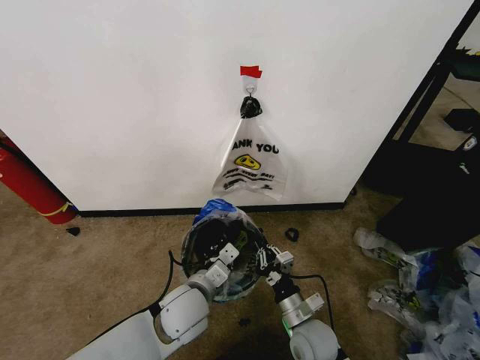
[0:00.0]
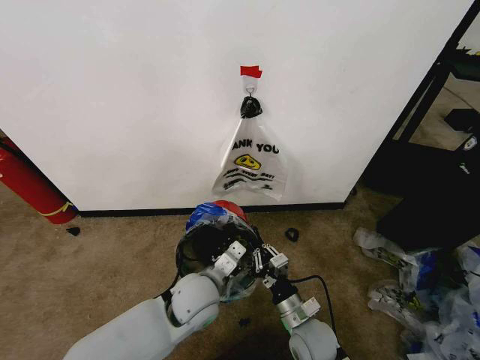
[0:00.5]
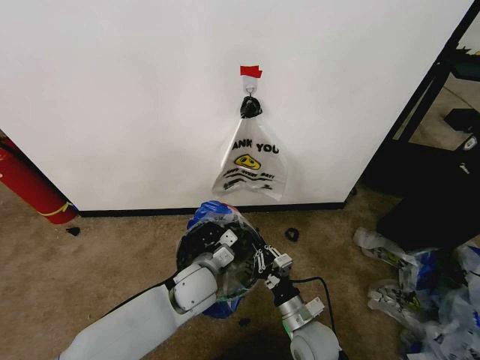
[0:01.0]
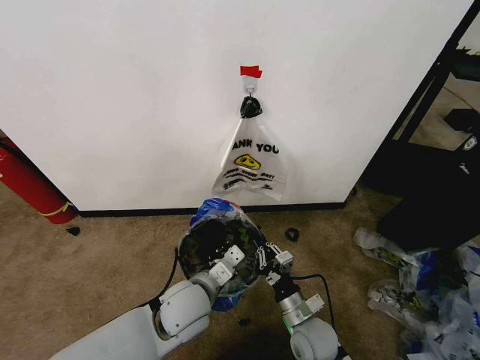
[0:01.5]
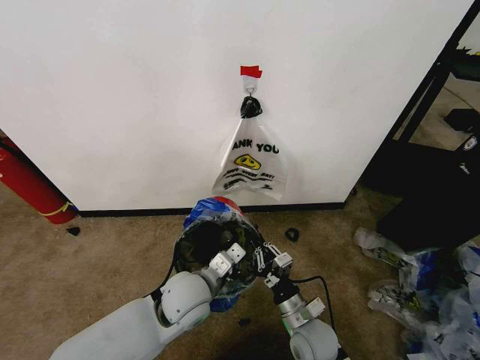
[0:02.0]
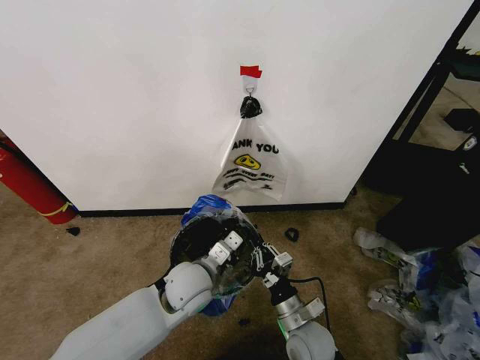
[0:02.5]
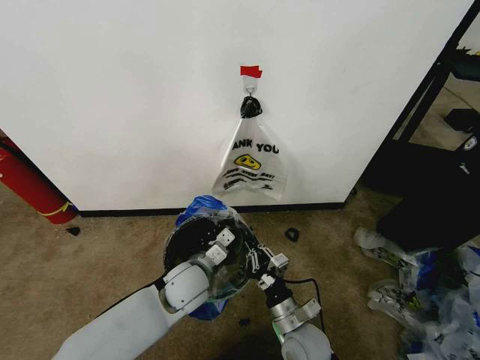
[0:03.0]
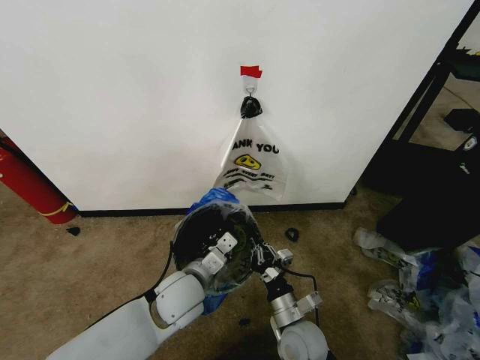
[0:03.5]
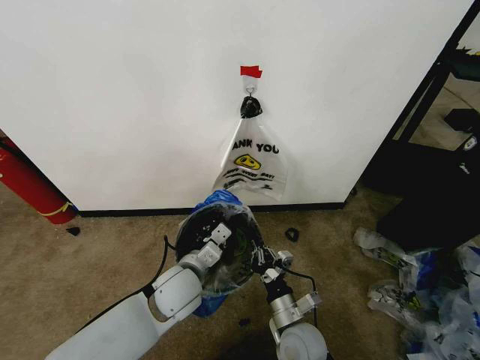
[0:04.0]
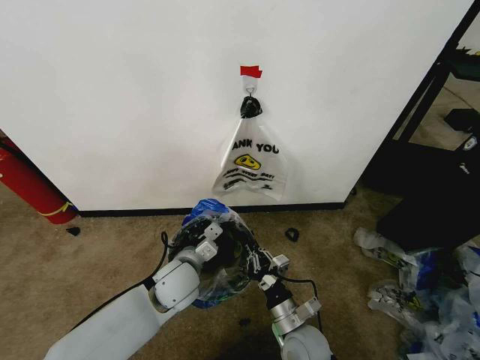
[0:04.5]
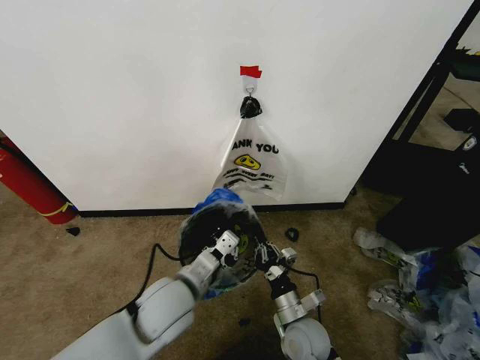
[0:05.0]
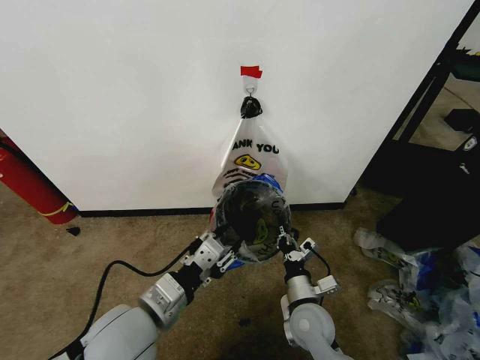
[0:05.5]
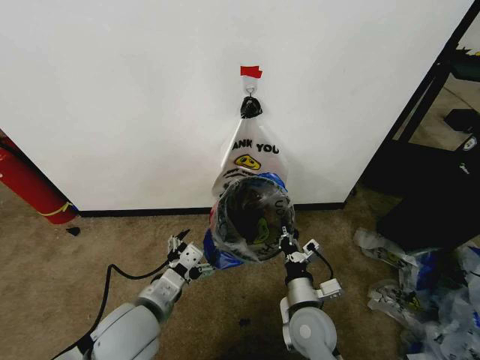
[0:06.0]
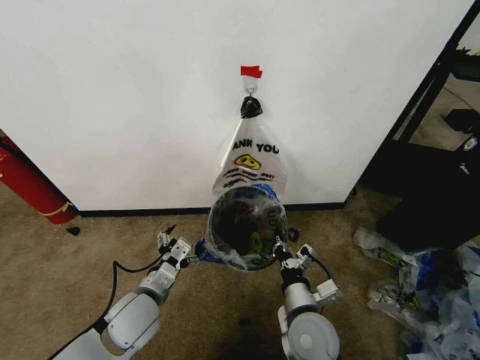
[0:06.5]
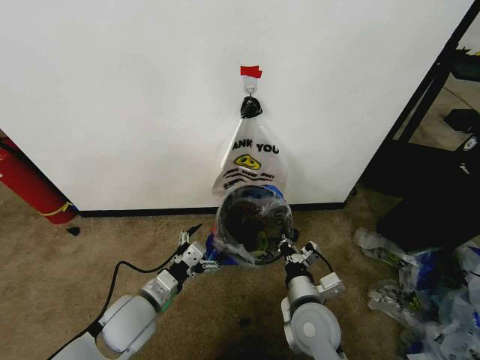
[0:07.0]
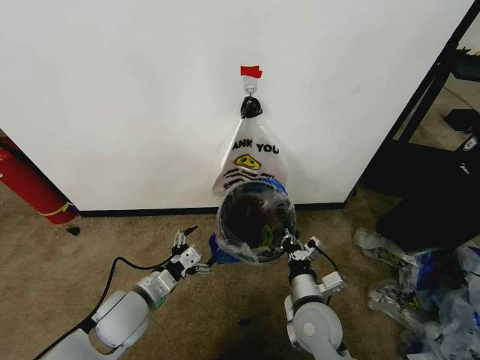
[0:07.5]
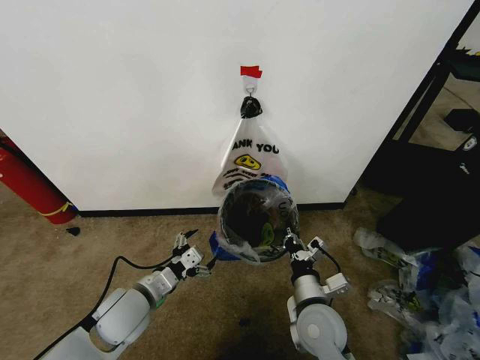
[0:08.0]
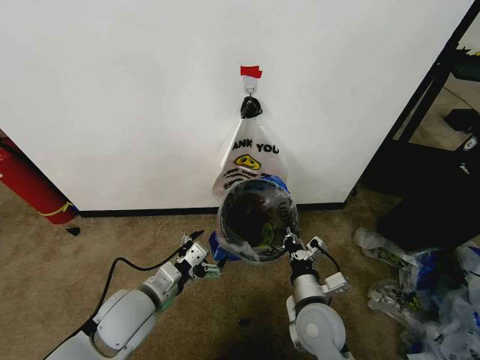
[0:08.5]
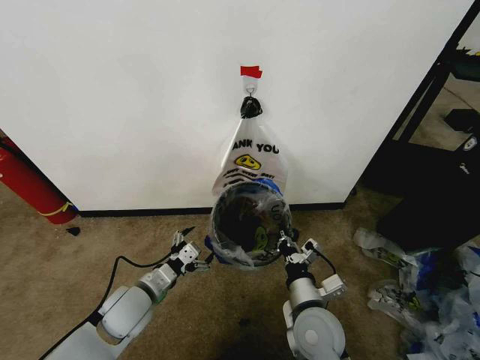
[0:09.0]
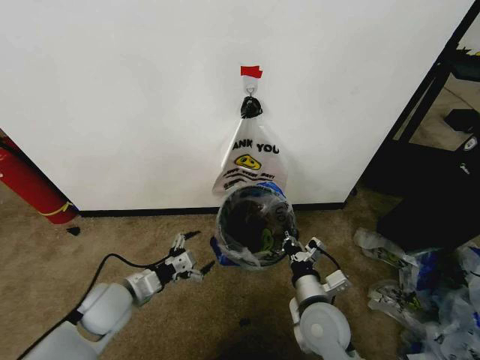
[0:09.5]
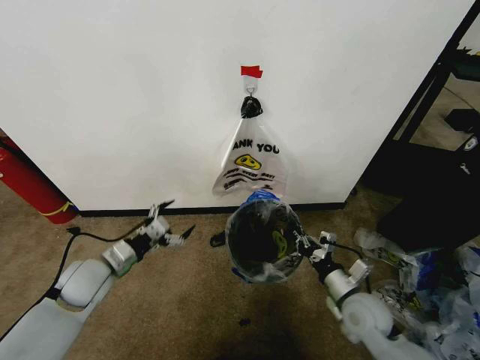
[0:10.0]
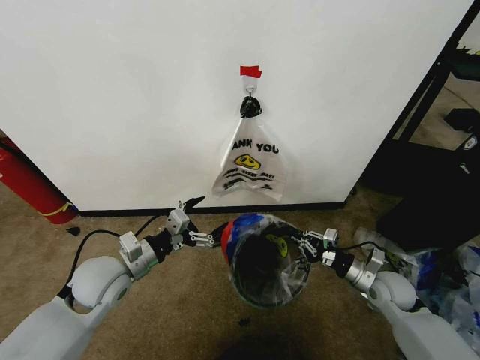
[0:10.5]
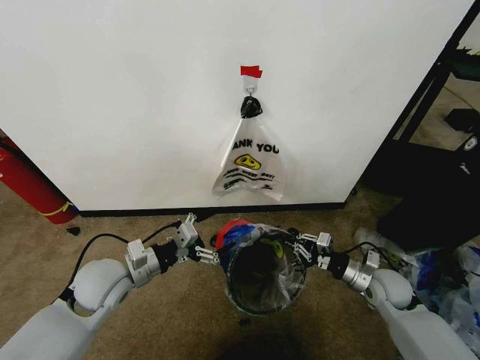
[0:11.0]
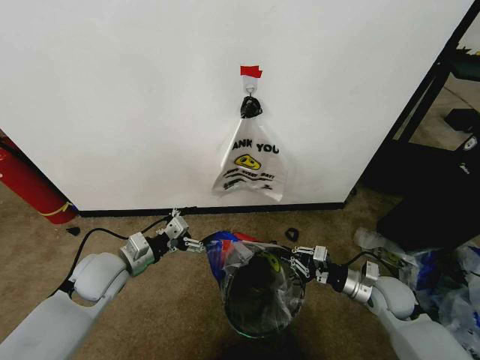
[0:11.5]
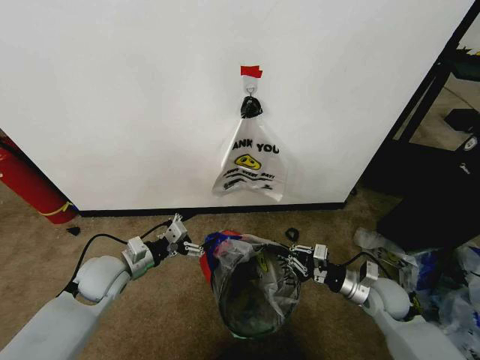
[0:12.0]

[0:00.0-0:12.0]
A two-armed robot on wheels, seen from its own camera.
Task of the whole recording: Pick up the garbage bag from the wall and place it over the trash bin.
0:04.0 to 0:06.0: The left gripper goes some 10 cm backward and to the left, and opens its fingers.
0:06.0 to 0:08.0: The left gripper shifts about 5 cm downward.
0:08.0 to 0:10.0: The left gripper is displaced to the left and forward by some 10 cm, while the right gripper shifts approximately 10 cm to the right.
0:10.0 to 0:12.0: The right gripper is displaced to the right by roughly 5 cm.

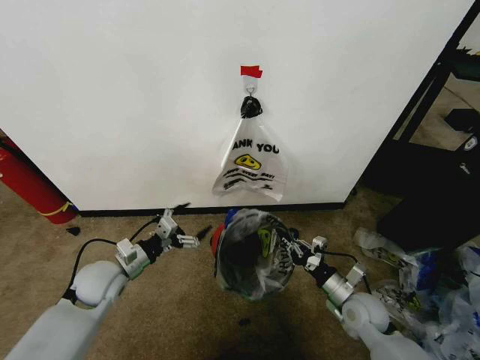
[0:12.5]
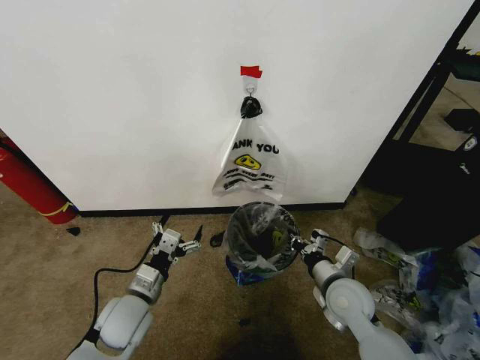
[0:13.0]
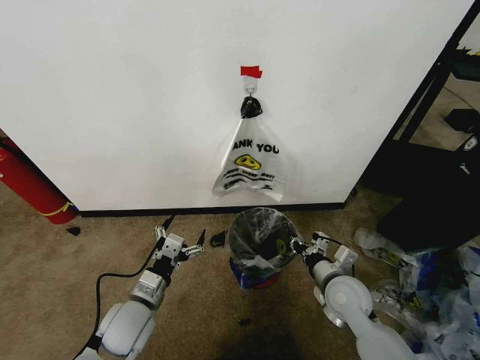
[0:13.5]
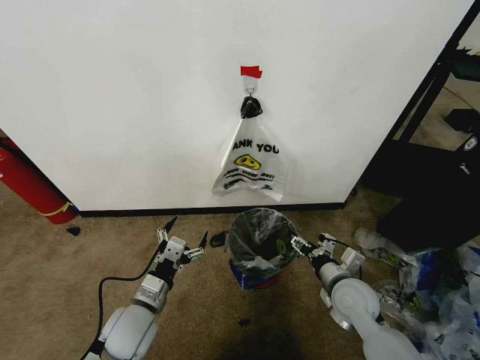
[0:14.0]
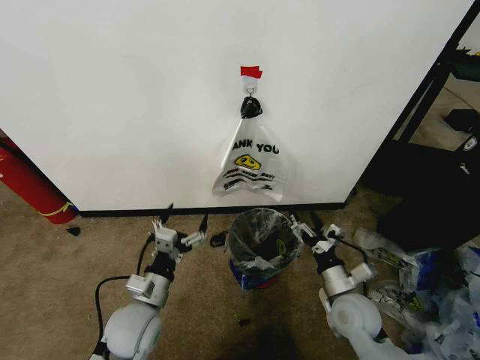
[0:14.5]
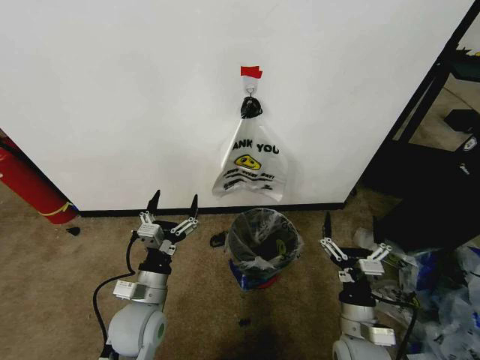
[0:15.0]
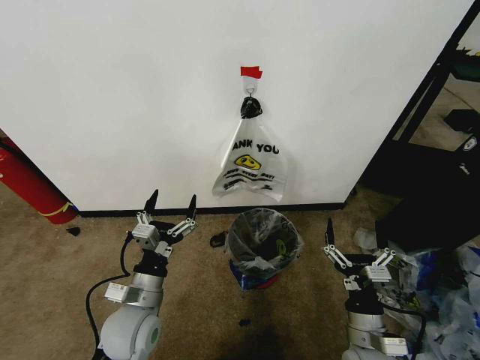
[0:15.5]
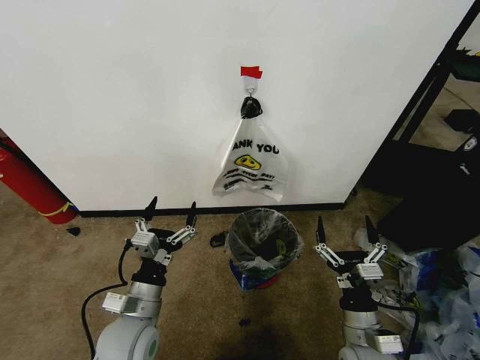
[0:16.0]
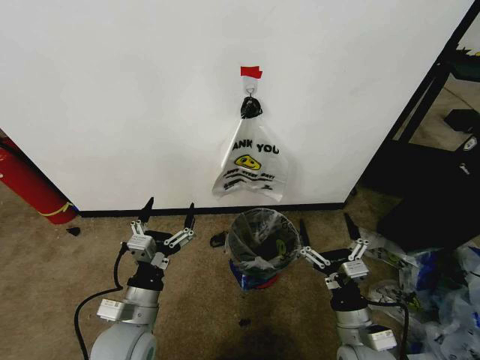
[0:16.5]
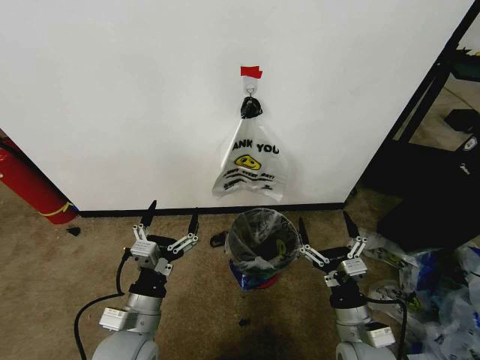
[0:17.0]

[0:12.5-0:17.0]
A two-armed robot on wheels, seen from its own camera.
Task of the whole recording: Pick up the garbage bag from the wall and place it over the trash bin.
0:12.5 to 0:14.5: The left gripper shifts some 15 cm to the right and backward; the right gripper moves about 5 cm, and opens its fingers.
0:14.5 to 0:17.0: The left gripper travels backward by approximately 5 cm, while the right gripper heads backward, covering about 10 cm.

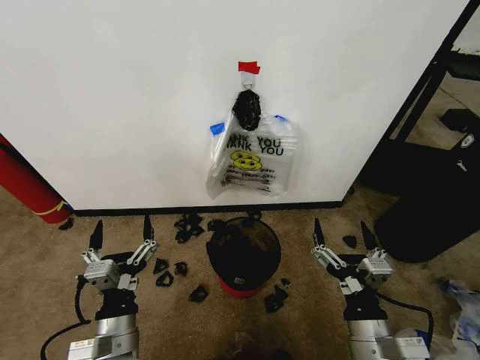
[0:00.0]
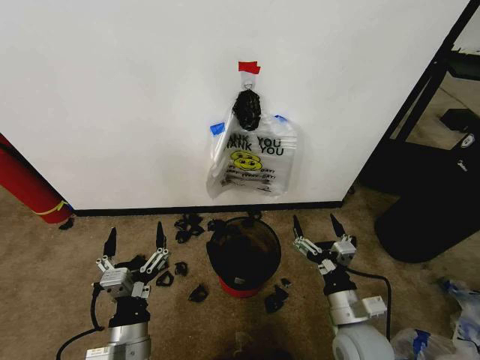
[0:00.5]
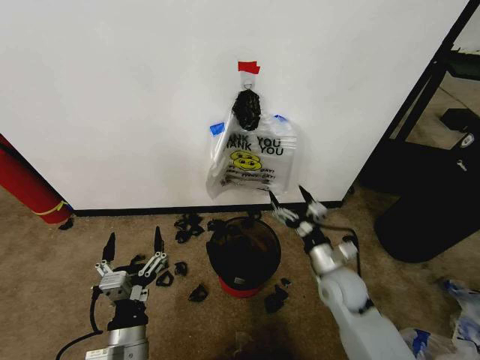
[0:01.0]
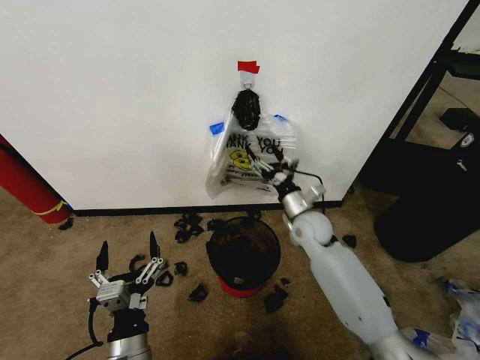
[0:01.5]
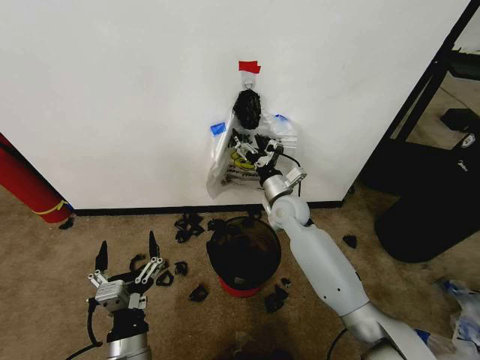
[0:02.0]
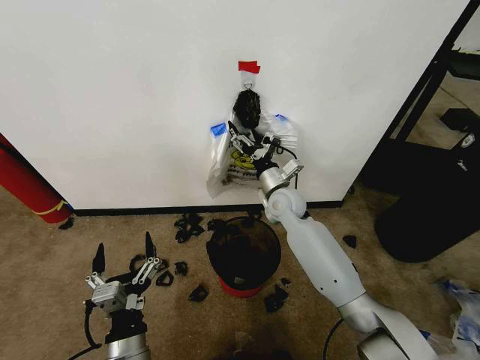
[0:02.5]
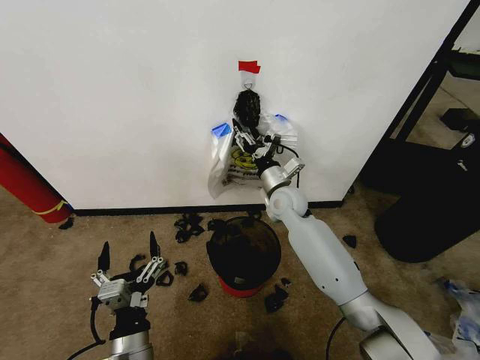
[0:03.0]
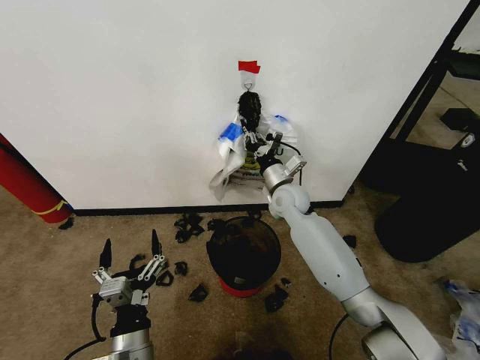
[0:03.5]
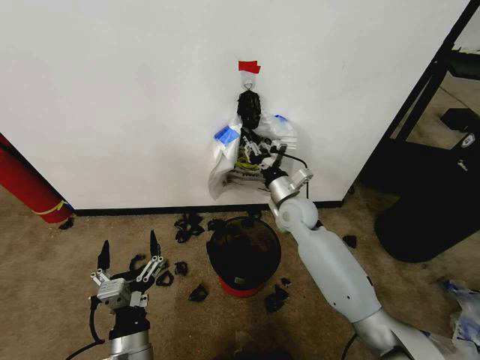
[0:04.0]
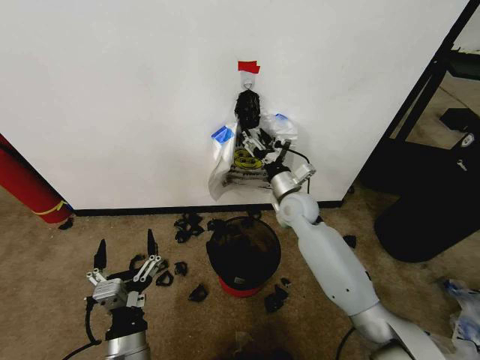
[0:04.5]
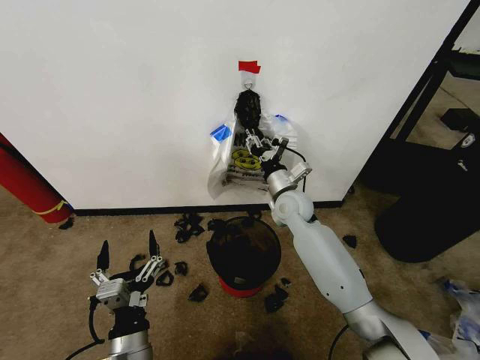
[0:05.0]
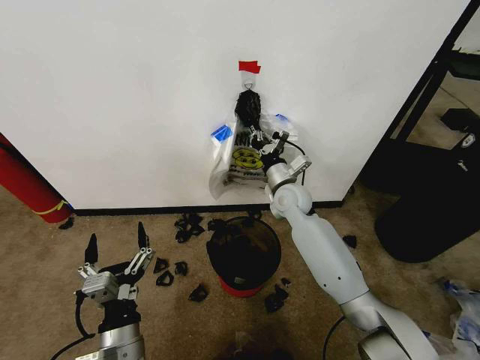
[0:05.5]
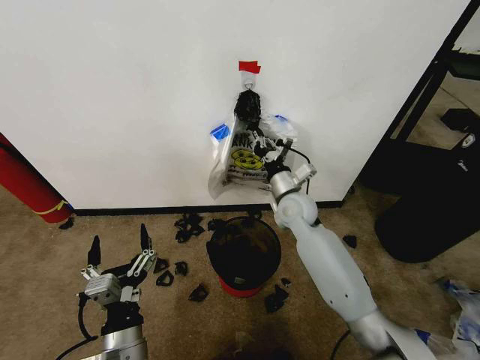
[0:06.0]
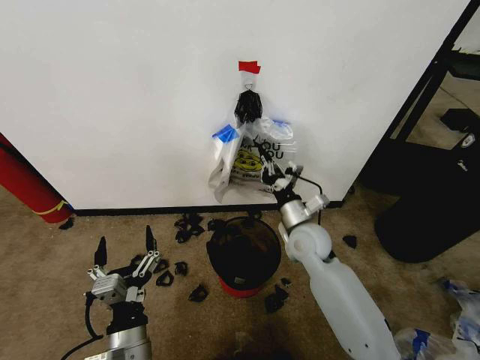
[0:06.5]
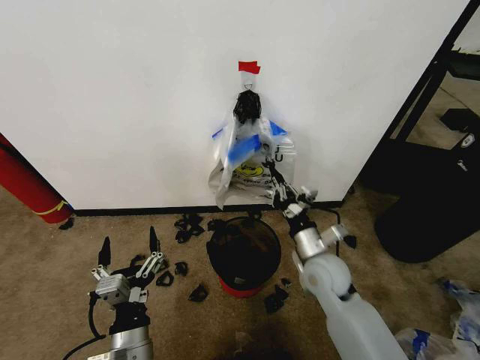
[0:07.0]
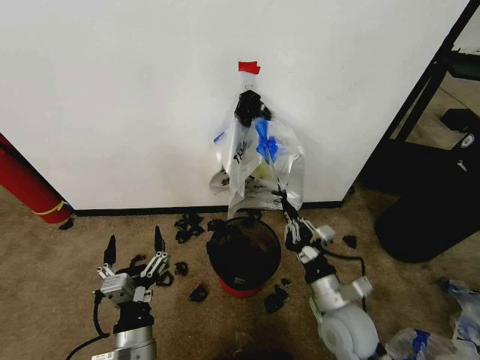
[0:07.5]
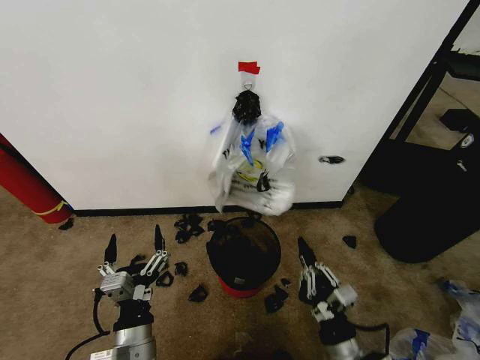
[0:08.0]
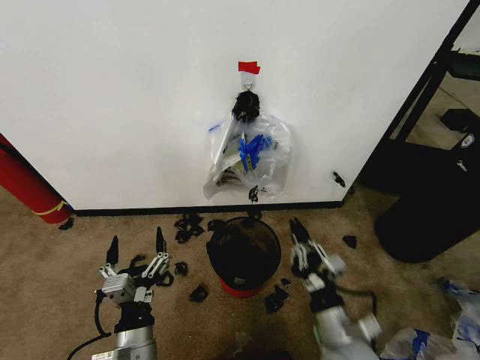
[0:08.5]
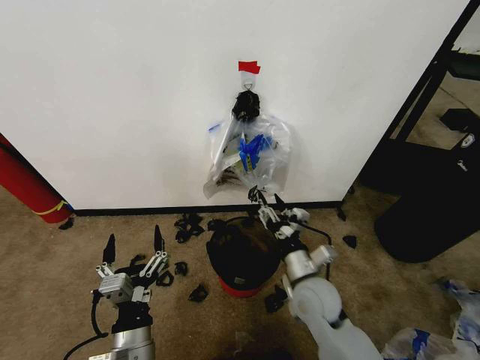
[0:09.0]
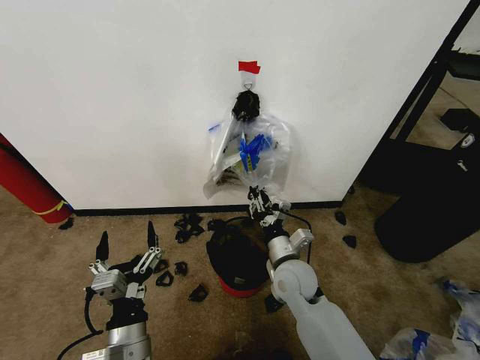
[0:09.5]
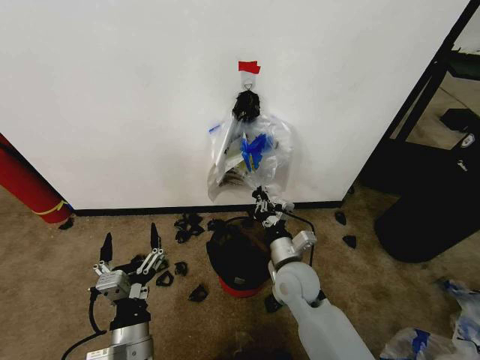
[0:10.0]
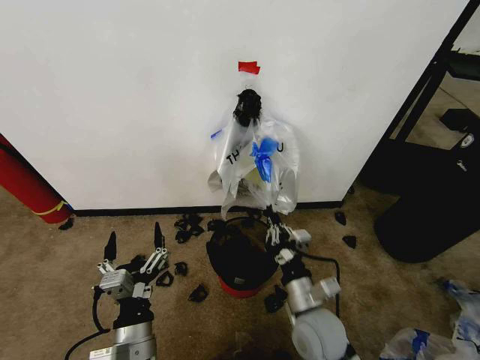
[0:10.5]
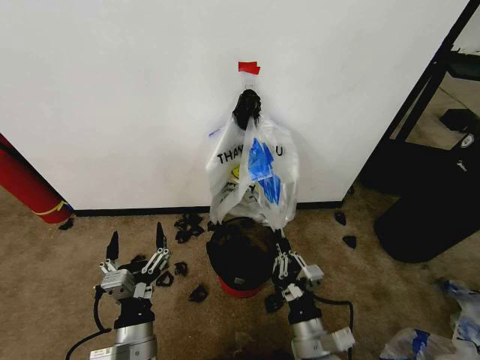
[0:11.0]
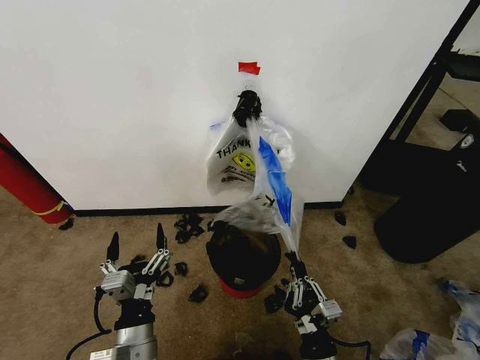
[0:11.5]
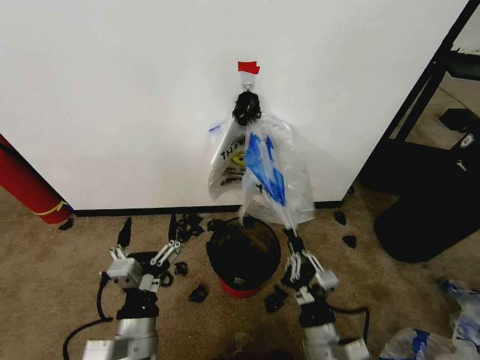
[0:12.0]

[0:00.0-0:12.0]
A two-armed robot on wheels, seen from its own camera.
Task of the whole recording: Pick up the garbage bag from the wall and place it over the trash bin.
0:02.0 to 0:04.0: The right gripper closes its fingers.
0:04.0 to 0:06.0: The right gripper opens and closes again.
0:06.0 to 0:08.0: The right gripper travels backward by about 35 cm.
0:08.0 to 0:10.0: The right gripper shifts about 20 cm forward and to the left, and opens and closes again.
0:10.0 to 0:12.0: The right gripper moves backward, about 15 cm.
